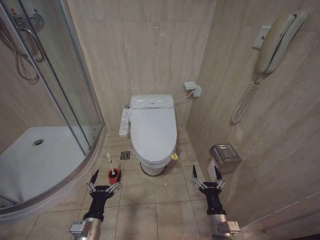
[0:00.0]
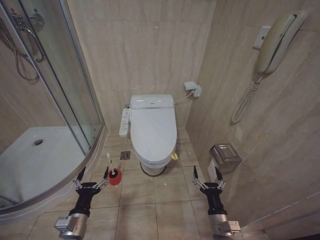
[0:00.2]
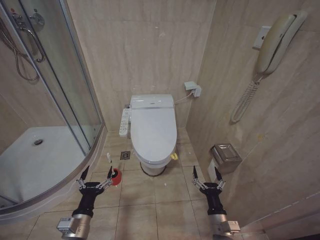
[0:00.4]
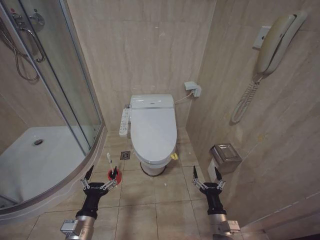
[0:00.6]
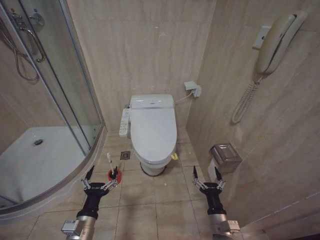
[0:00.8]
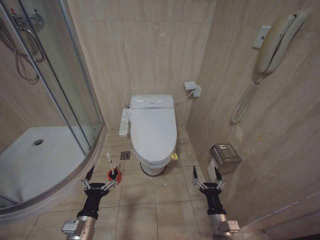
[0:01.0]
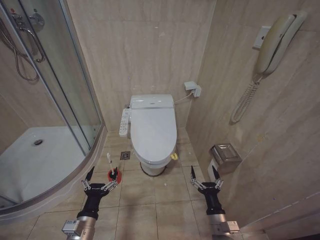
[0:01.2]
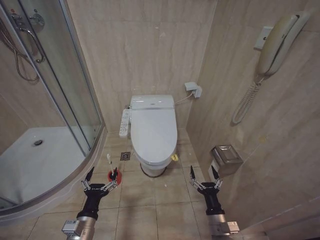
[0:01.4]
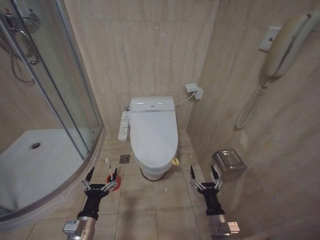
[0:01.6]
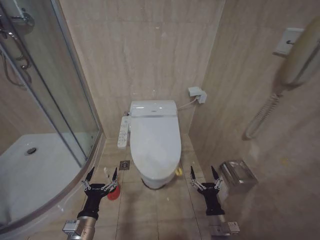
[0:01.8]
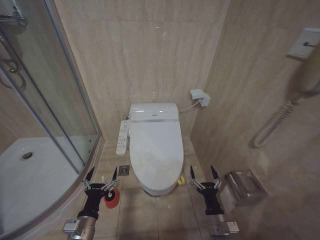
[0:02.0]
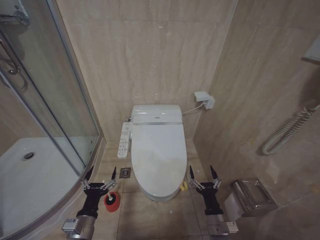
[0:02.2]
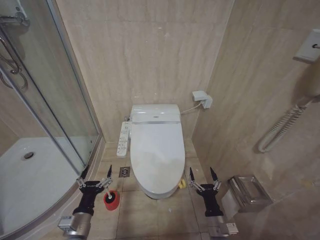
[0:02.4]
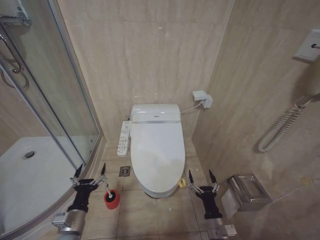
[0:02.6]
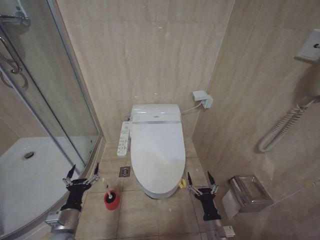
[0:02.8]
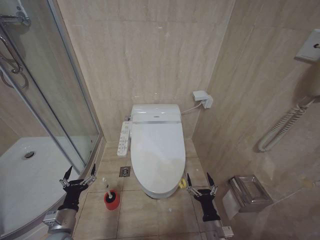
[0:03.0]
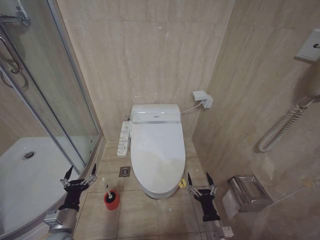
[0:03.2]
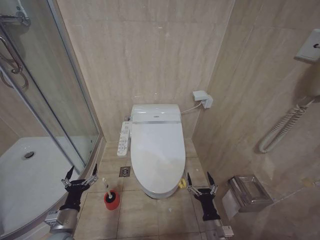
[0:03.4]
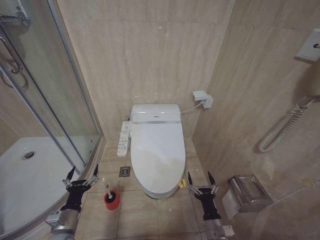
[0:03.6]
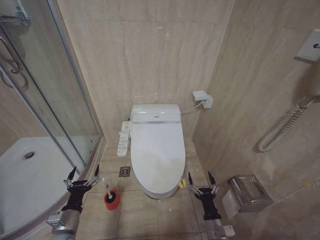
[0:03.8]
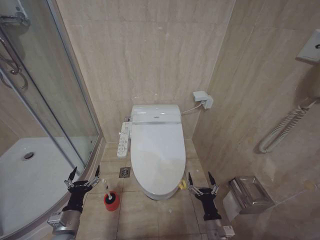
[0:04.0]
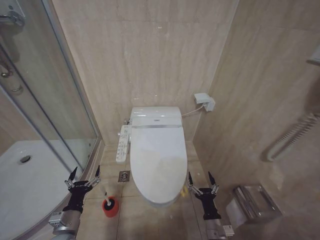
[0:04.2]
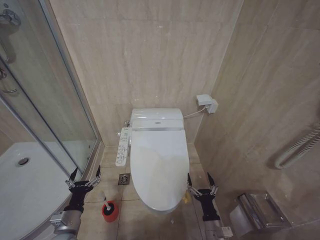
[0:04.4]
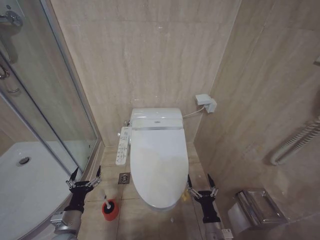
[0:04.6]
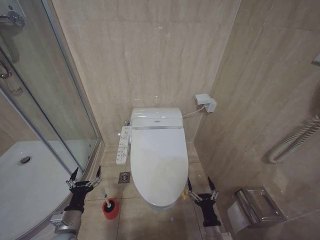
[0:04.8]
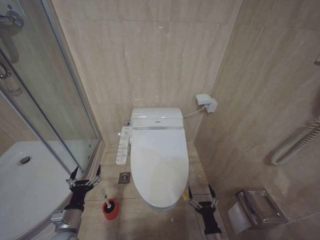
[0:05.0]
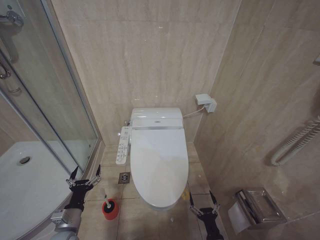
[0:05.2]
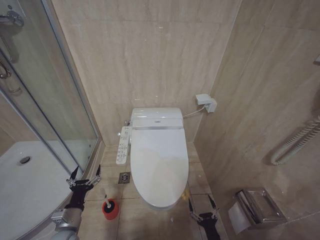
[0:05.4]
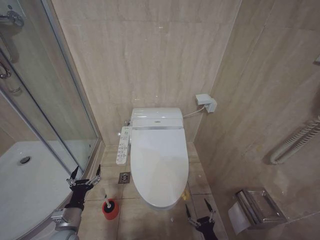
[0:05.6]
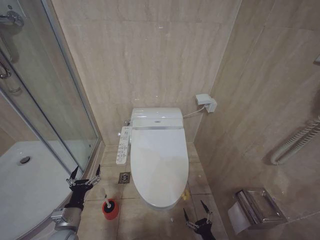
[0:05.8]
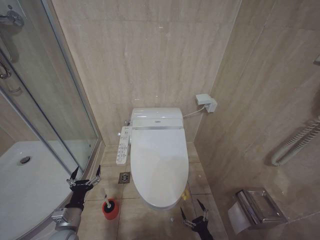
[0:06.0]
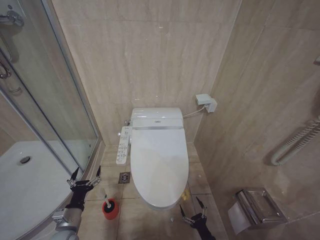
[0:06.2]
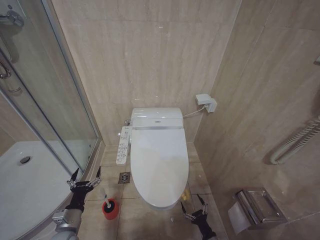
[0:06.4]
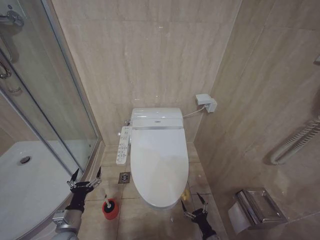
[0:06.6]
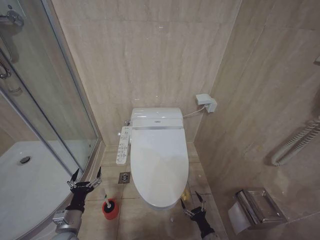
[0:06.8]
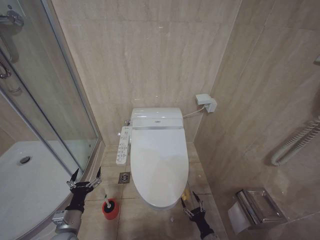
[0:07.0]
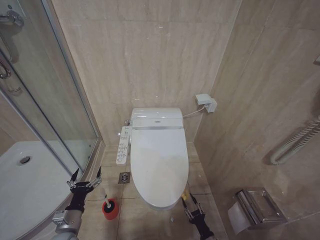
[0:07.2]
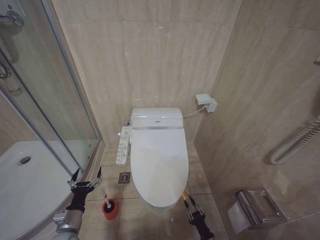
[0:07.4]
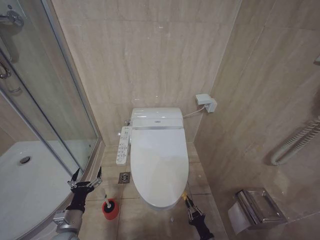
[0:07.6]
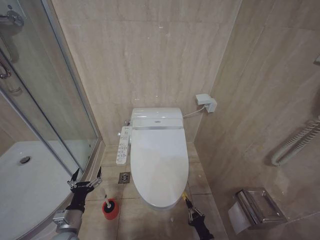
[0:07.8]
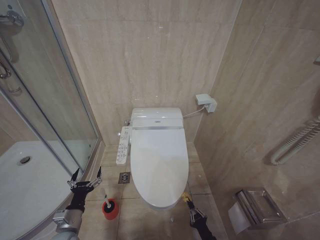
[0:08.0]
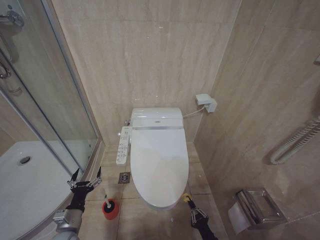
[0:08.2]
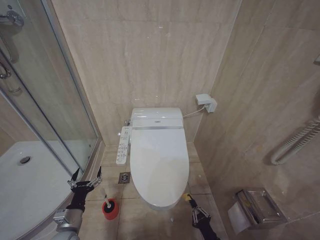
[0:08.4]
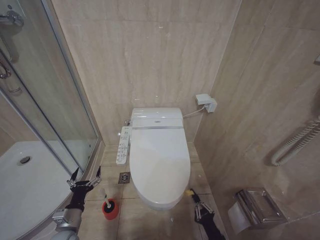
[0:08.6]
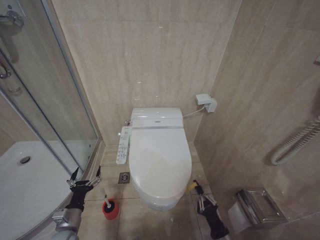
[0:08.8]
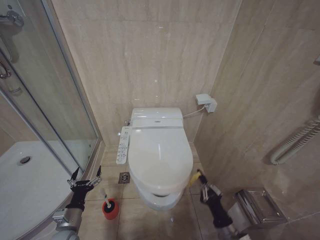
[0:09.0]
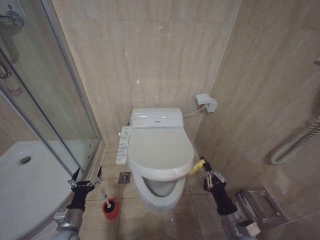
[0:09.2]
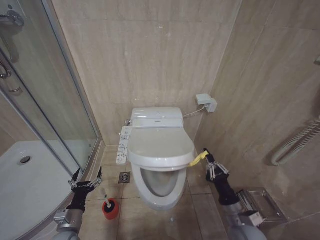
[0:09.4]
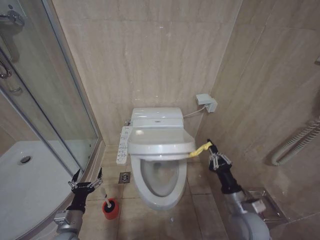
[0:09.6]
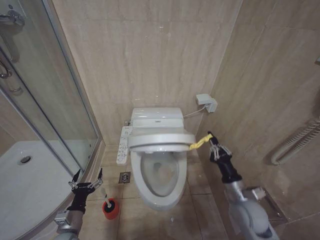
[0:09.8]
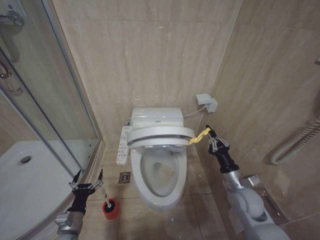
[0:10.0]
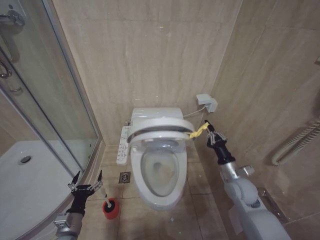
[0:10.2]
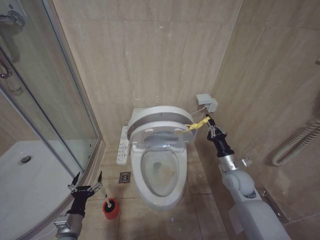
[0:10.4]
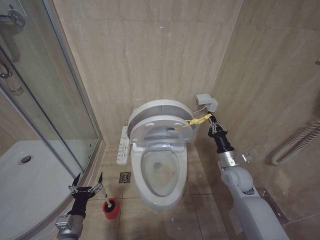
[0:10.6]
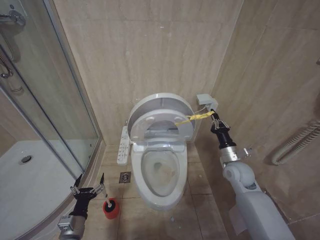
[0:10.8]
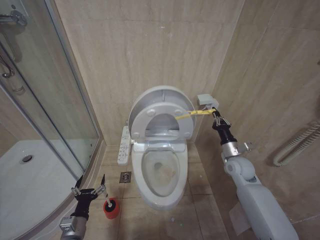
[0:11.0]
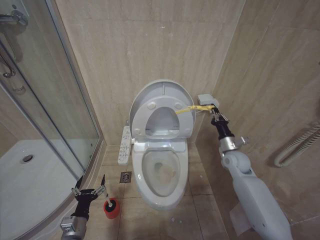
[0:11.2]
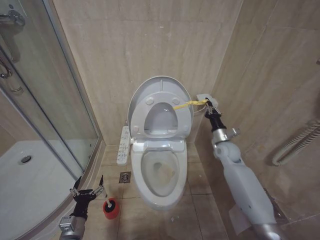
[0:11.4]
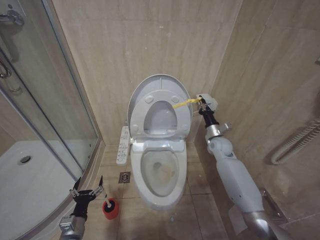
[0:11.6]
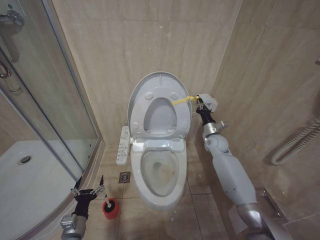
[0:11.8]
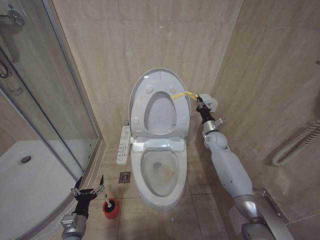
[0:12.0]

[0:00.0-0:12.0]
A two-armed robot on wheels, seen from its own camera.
Task of the whole recording: Open the toilet lid, clean the toilet bowl with a toilet brush, close the toilet lid, and flush.
0:01.6 to 0:03.0: The left gripper is displaced to the left by roughly 5 cm.
0:03.0 to 0:04.4: Both grippers stay put.
0:04.4 to 0:06.0: The right gripper moves downward and backward, roughly 15 cm.
0:07.6 to 0:09.0: The right gripper goes approximately 15 cm upward, and closes its fingers.
0:09.0 to 0:10.4: The right gripper heads forward and upward, covering roughly 25 cm.
0:10.4 to 0:12.0: The right gripper travels forward by approximately 20 cm.

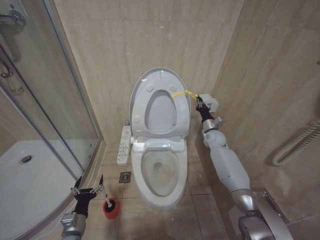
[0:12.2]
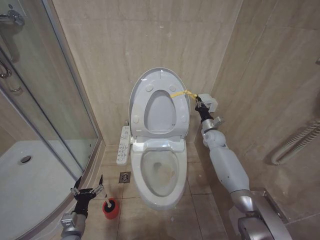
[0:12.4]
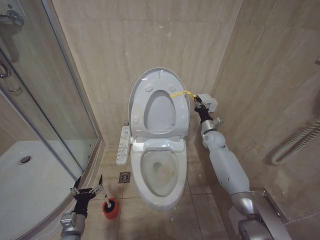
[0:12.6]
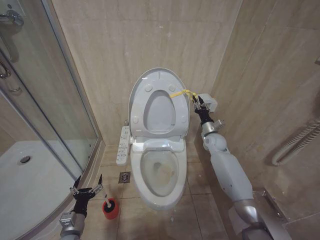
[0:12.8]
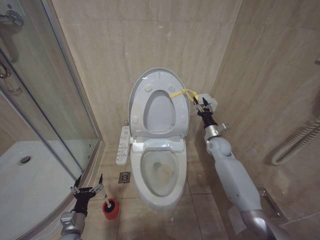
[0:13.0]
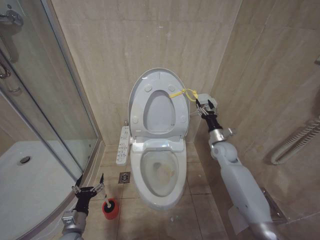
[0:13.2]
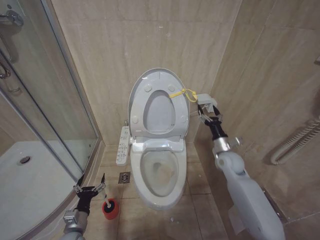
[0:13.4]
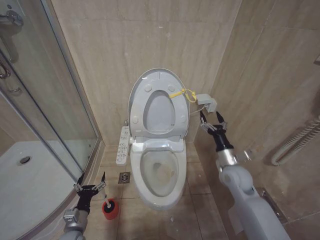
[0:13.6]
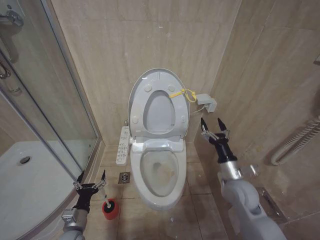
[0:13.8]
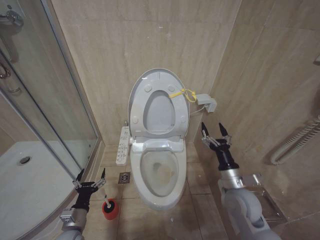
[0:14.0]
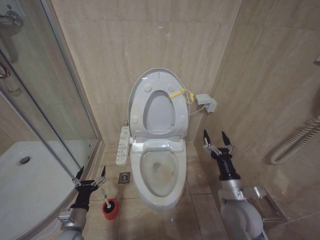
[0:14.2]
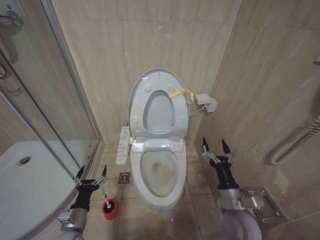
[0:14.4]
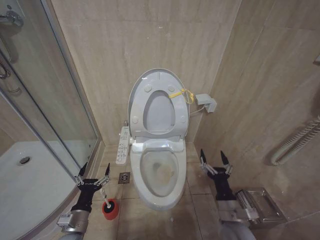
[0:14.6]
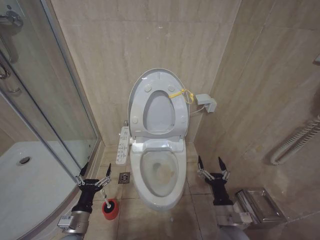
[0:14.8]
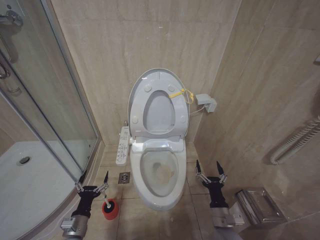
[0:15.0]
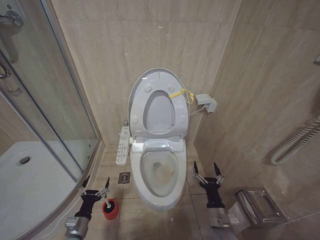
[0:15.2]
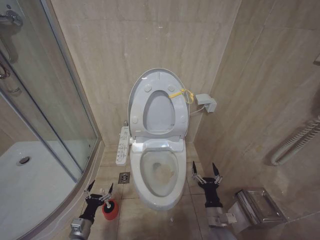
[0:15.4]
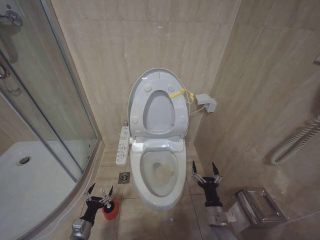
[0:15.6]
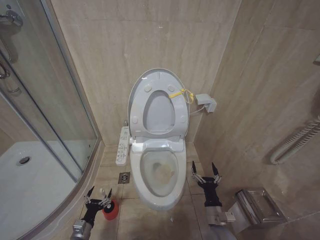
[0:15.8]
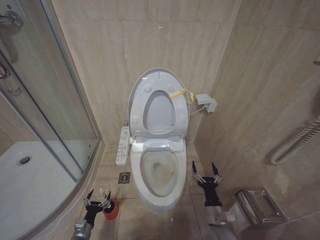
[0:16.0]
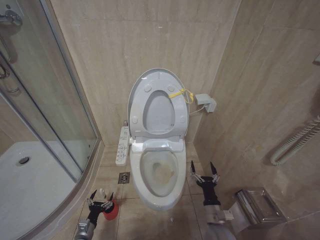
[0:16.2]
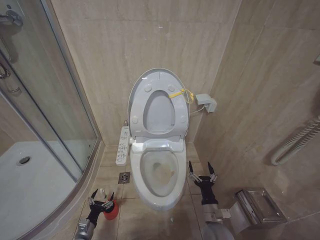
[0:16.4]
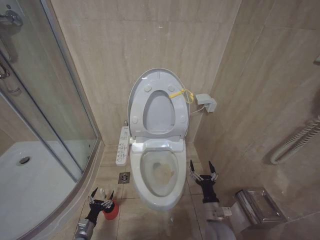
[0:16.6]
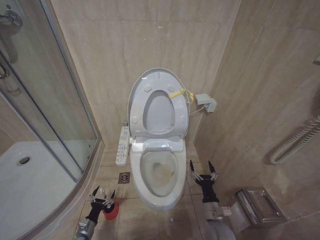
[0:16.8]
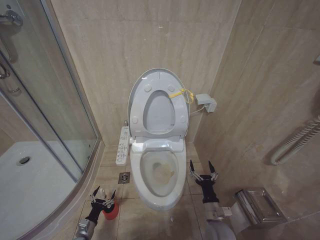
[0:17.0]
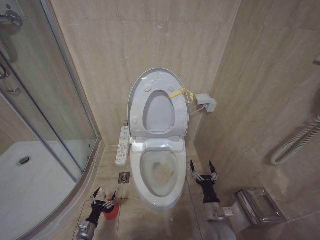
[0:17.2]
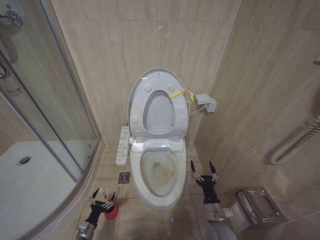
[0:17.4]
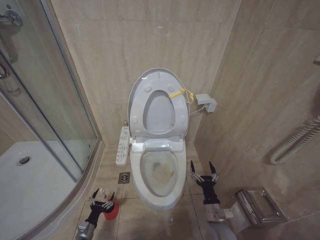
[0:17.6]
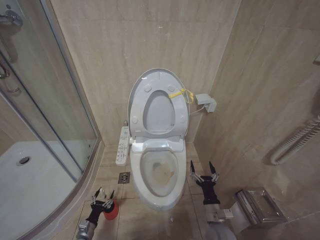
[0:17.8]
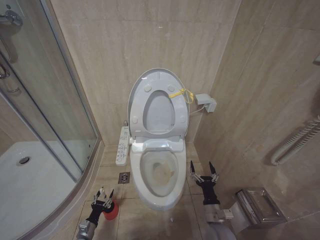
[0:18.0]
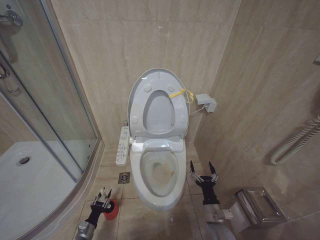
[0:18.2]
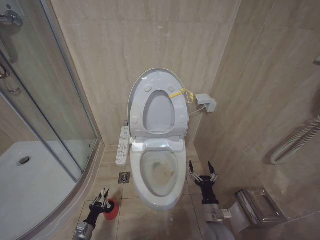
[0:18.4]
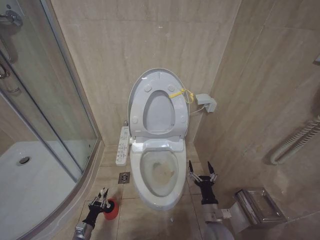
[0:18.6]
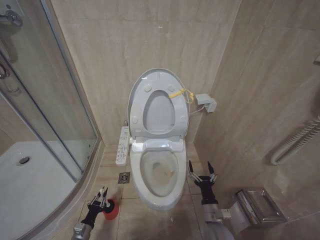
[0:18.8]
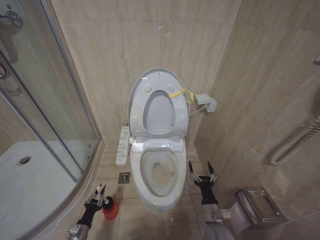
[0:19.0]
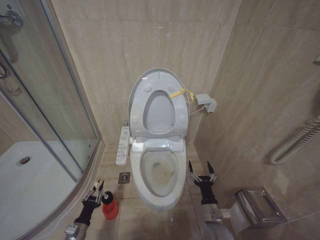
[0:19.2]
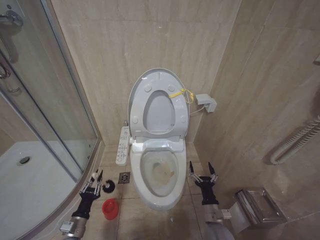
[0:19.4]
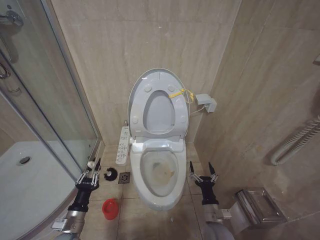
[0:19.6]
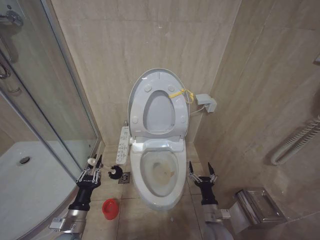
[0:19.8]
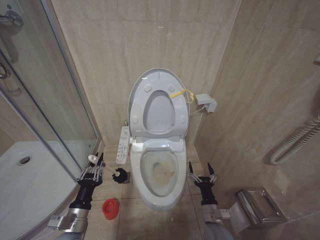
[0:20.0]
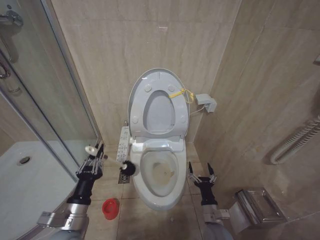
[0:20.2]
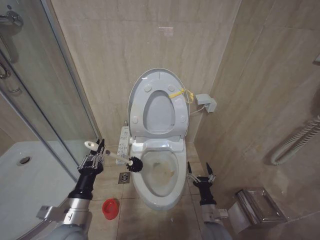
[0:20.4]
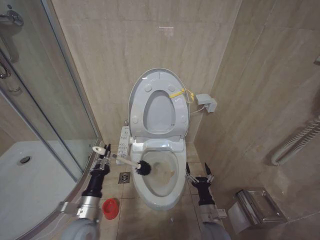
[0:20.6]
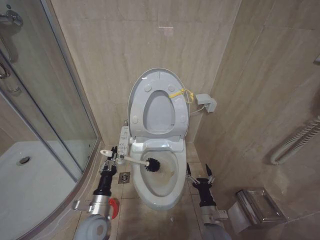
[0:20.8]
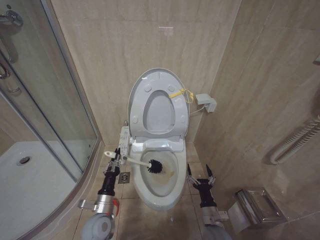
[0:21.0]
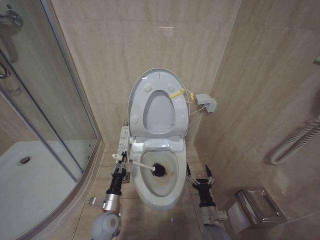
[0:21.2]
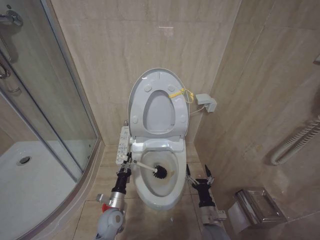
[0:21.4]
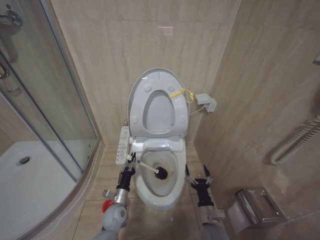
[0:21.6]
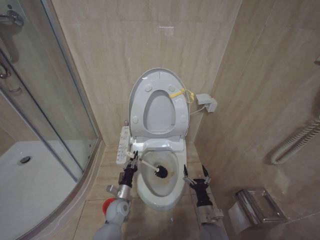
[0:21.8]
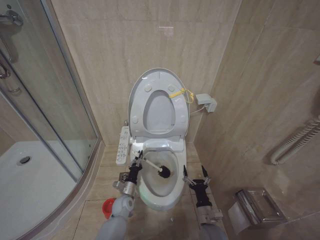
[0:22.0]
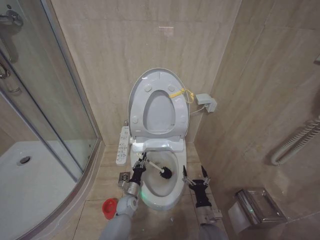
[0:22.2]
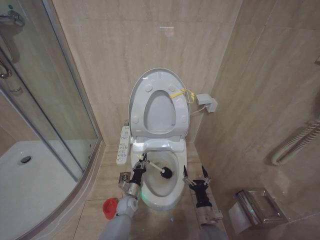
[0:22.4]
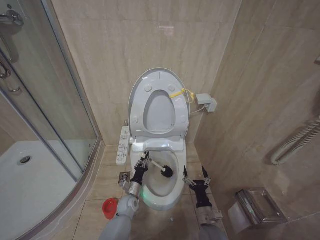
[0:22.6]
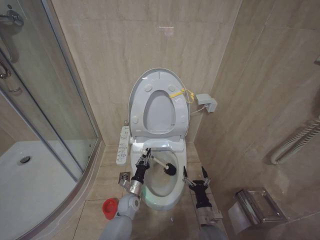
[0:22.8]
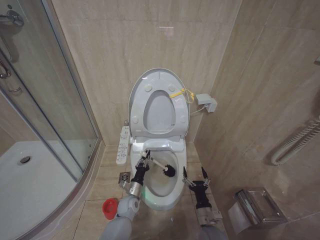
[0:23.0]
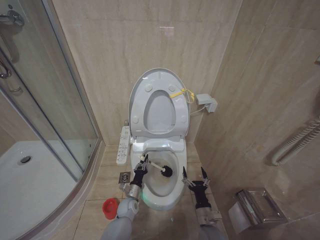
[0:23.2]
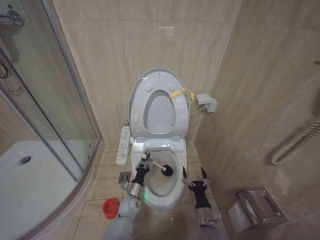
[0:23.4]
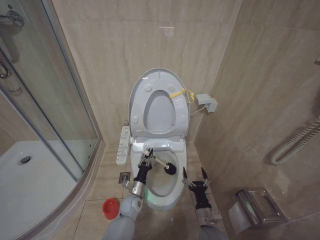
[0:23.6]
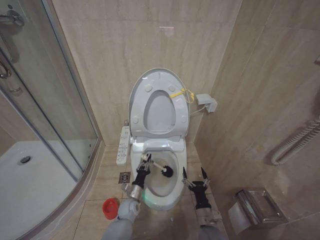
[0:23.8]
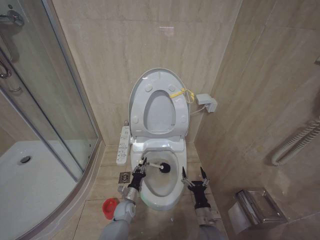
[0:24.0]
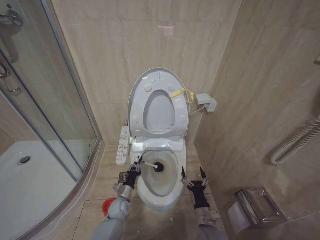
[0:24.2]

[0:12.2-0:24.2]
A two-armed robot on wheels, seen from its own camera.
Task of the whole recording: Open the toilet lid, clean the toilet bowl with a toilet brush, close the toilet lid, and flush.
0:12.2 to 0:13.8: The right gripper goes roughly 25 cm backward, and opens its fingers.
0:13.8 to 0:15.2: The right gripper moves downward and backward, some 20 cm.
0:15.2 to 0:16.6: The left gripper shifts some 15 cm downward.
0:16.6 to 0:18.2: Neither gripper changes place.
0:18.2 to 0:19.8: The left gripper goes about 25 cm upward, and closes.
0:19.8 to 0:21.2: The left gripper shifts roughly 15 cm to the right, forward and downward.
0:21.2 to 0:22.6: The left gripper moves forward, downward and to the right, about 15 cm.
0:22.6 to 0:24.2: There are only small adjustments of the grippers.
